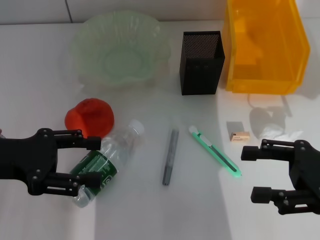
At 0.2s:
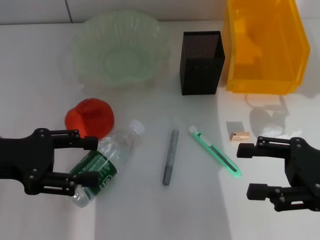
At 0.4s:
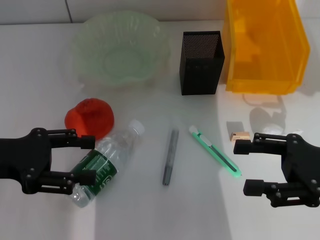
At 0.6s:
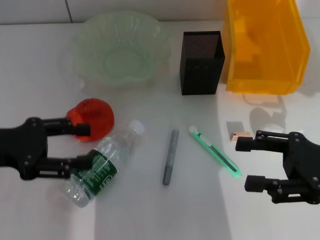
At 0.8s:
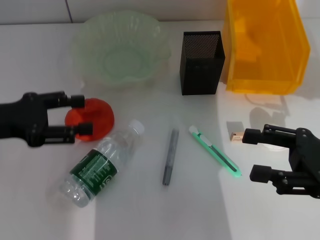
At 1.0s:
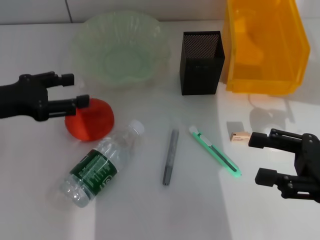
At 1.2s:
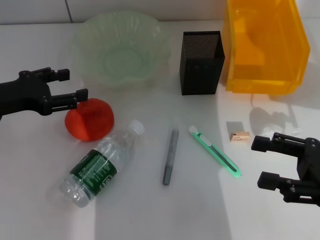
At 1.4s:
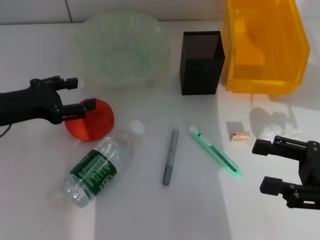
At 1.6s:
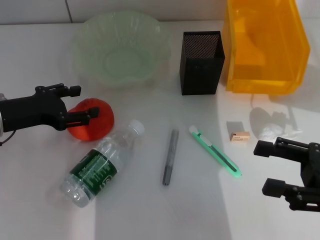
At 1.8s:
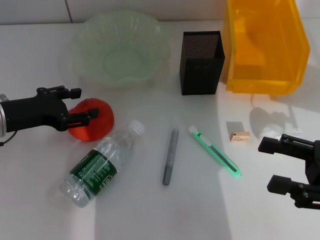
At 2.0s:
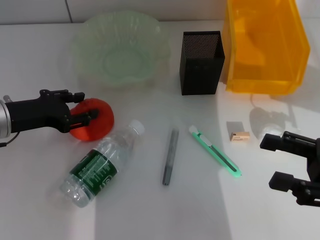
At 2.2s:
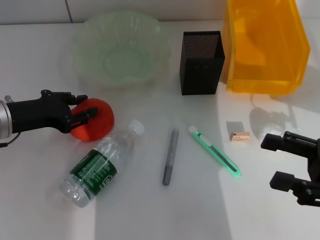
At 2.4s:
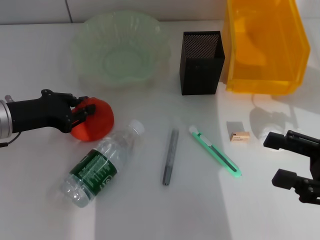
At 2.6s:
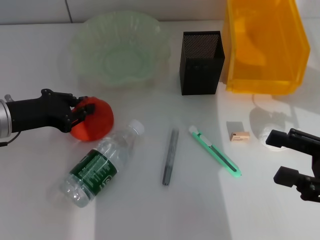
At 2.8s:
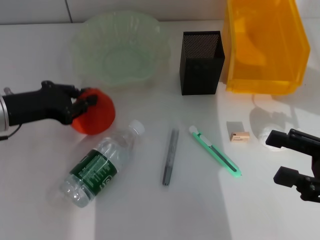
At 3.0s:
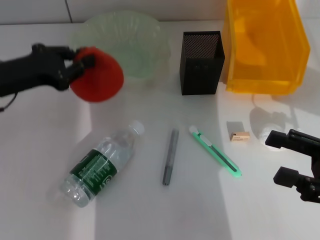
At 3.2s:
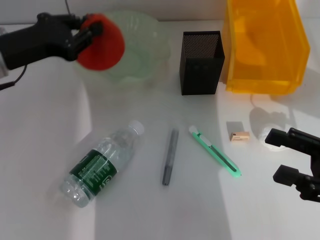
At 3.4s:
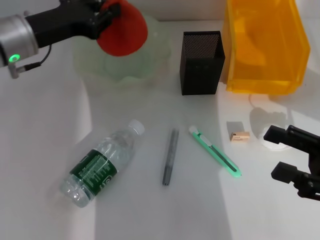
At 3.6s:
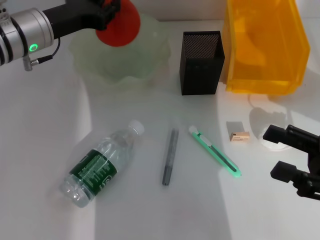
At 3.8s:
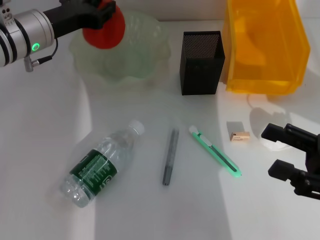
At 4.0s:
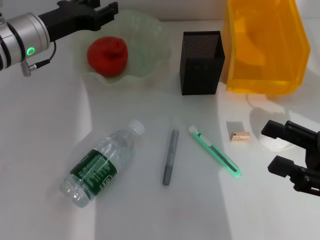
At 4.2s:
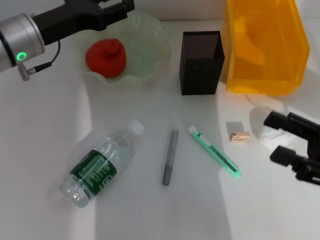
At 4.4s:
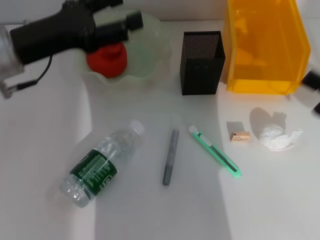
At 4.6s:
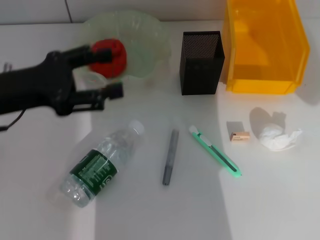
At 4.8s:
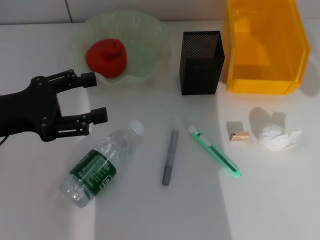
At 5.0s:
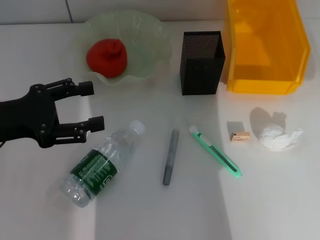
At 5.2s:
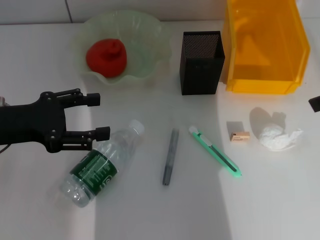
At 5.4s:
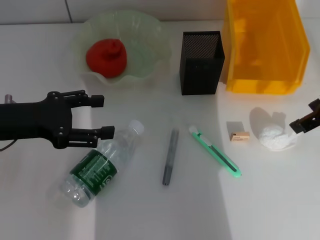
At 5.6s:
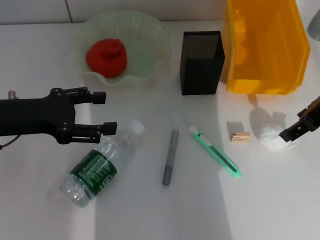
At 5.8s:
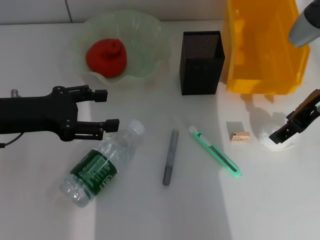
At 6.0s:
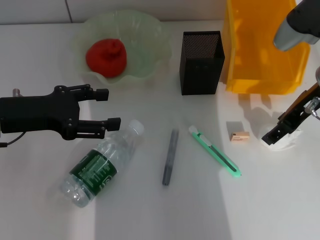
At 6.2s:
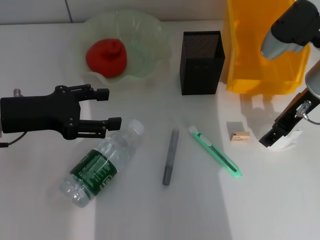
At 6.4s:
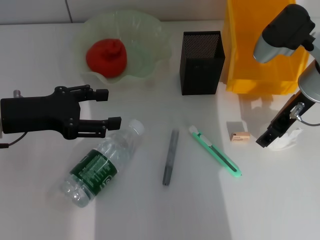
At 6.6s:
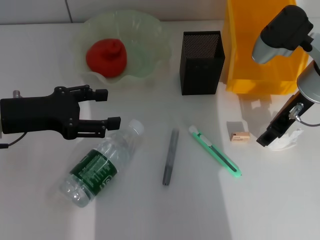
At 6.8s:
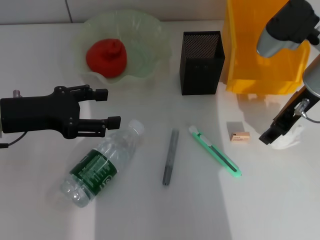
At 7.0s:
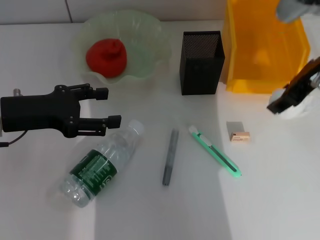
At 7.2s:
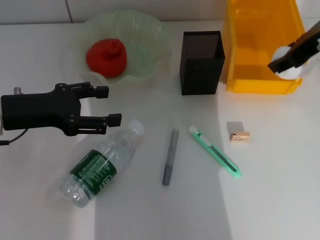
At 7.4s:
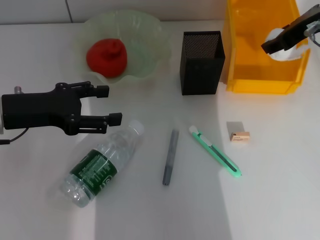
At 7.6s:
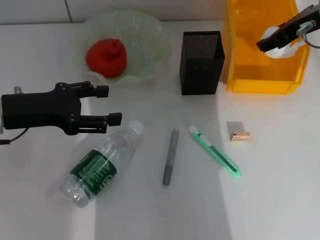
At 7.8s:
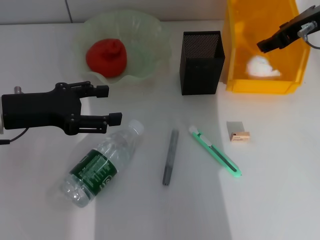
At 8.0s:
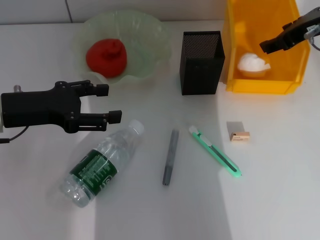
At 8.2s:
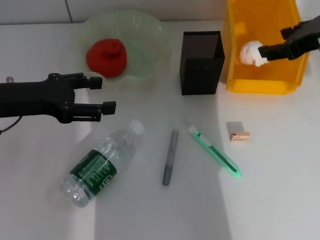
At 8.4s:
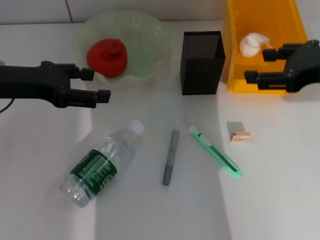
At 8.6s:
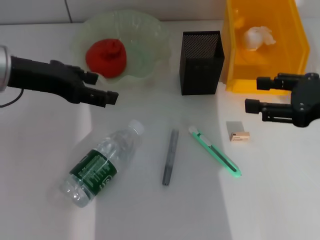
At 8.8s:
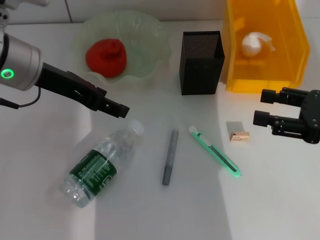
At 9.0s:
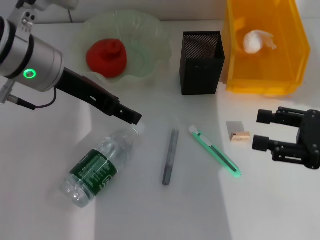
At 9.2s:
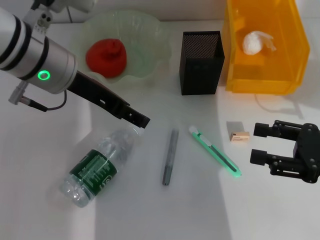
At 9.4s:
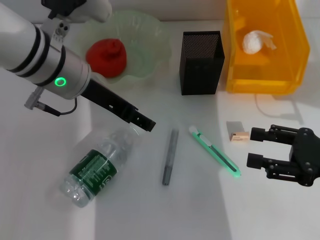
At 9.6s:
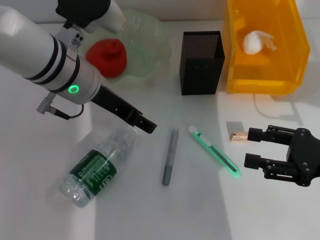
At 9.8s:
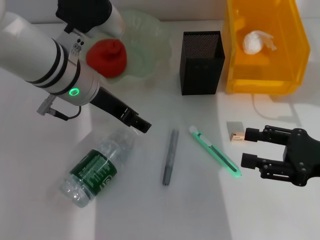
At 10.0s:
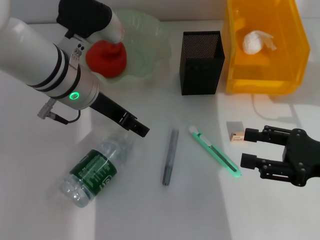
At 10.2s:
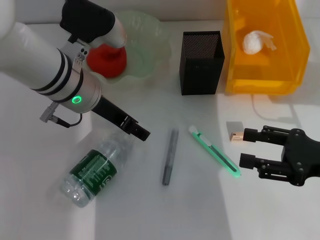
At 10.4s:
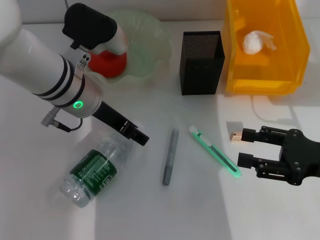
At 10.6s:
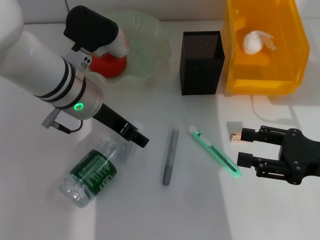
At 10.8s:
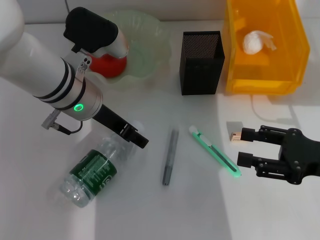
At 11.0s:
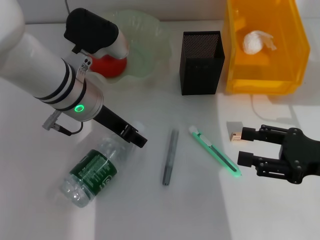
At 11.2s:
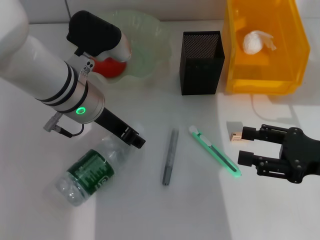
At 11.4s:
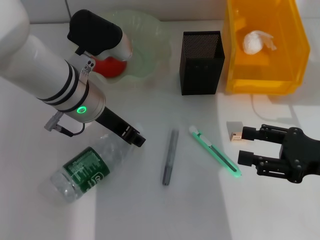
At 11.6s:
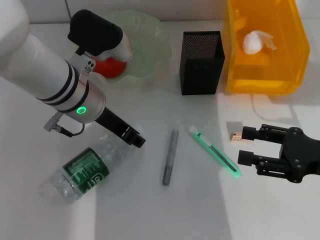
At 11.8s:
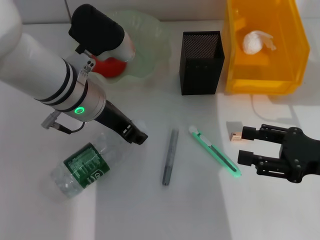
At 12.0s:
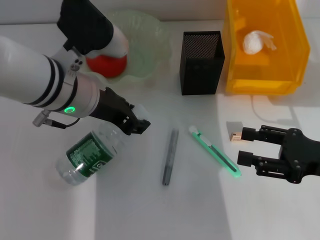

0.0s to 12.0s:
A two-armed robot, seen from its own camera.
Step, 0.0s to 2.4s: Grab the orange with the left hand.
Step, 2.8s to 3.8s: Place the orange into the fruit bowl with the left hand.
Step, 4.2s to 6.4s: Grab the paper ball with the right hand.
Step, 6.8s to 7.8s: Place the paper ball into the trash can with the right hand.
Step, 8.0s to 11.2s: Grab the water bottle with the left hand.
0.0s to 1.6s: The left gripper heads forward, covering some 5 cm.
1.6s to 3.0s: The left gripper closes up.
3.0s to 4.4s: The left gripper moves approximately 10 cm forward and comes back, and opens up.
4.4s to 6.0s: The right gripper is displaced forward and to the left by some 20 cm, and moves some 15 cm upward and comes back, while the left gripper ends up about 5 cm from where it was.
6.0s to 7.6s: The right gripper heads upward, covering some 5 cm.
7.6s to 9.0s: The left gripper moves to the right and upward, some 10 cm; the right gripper is displaced backward, downward and to the right by roughly 20 cm.
9.0s to 10.4s: The left gripper heads downward, covering some 5 cm.
10.4s to 12.0s: The left gripper closes its fingers.

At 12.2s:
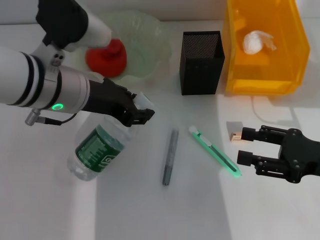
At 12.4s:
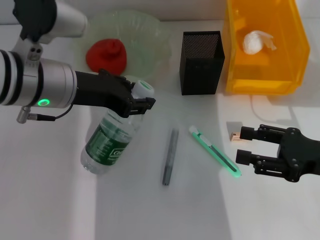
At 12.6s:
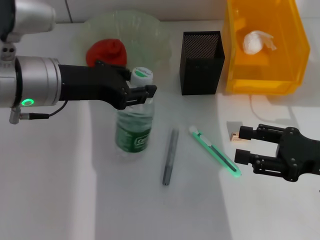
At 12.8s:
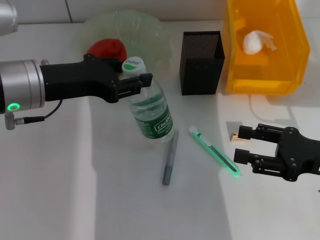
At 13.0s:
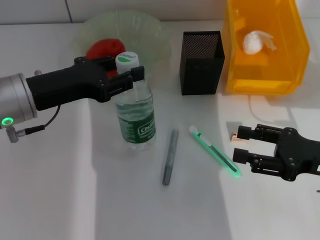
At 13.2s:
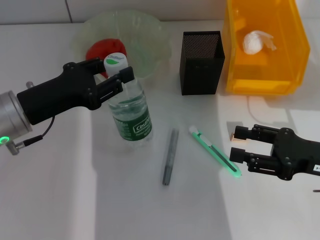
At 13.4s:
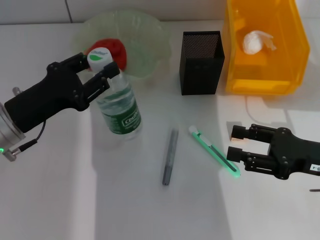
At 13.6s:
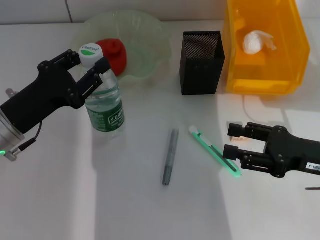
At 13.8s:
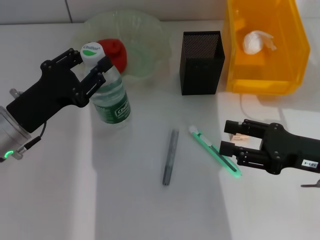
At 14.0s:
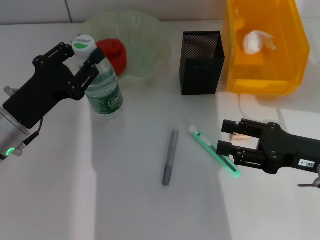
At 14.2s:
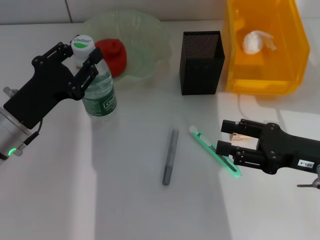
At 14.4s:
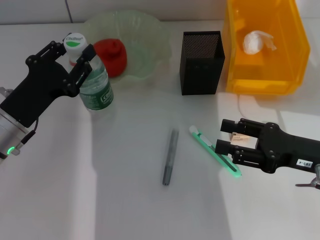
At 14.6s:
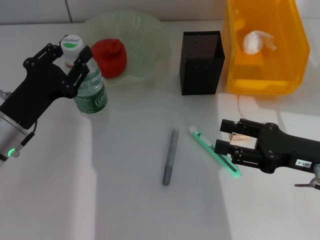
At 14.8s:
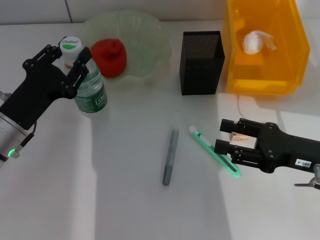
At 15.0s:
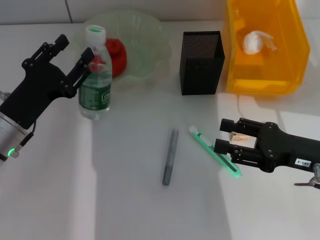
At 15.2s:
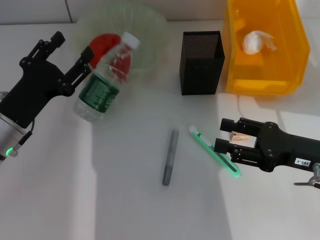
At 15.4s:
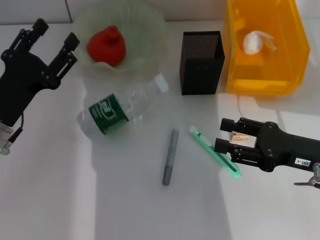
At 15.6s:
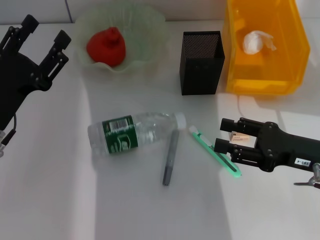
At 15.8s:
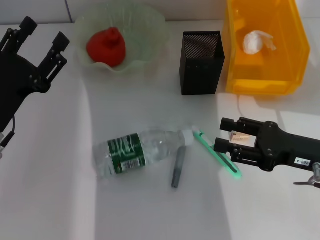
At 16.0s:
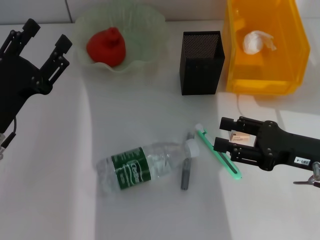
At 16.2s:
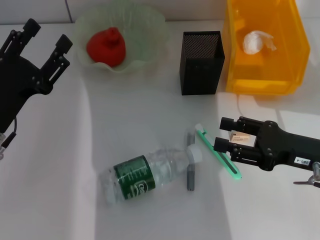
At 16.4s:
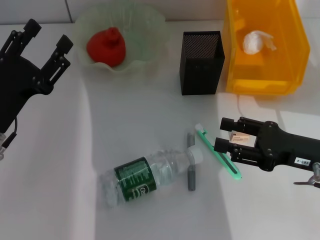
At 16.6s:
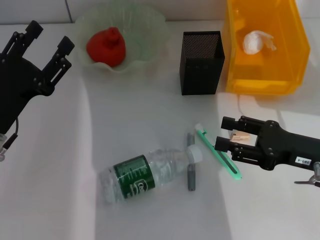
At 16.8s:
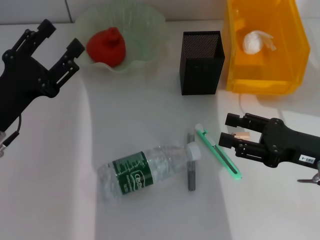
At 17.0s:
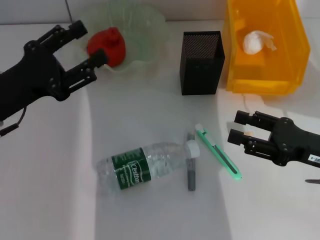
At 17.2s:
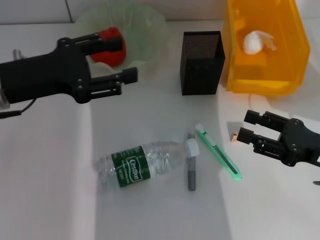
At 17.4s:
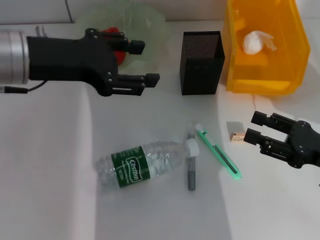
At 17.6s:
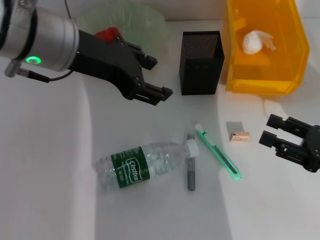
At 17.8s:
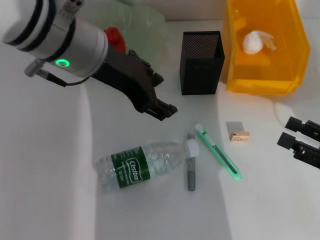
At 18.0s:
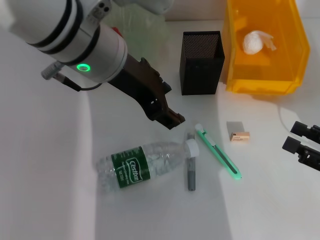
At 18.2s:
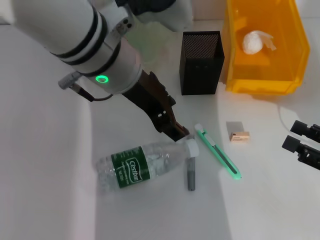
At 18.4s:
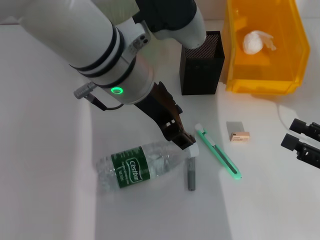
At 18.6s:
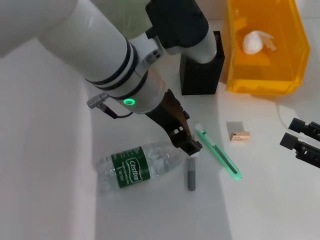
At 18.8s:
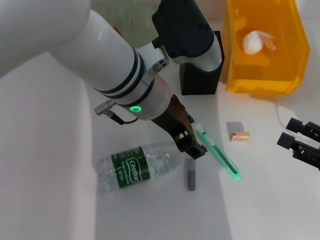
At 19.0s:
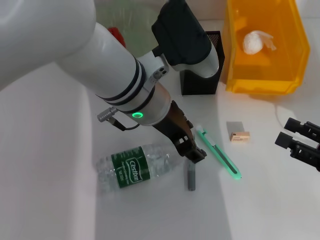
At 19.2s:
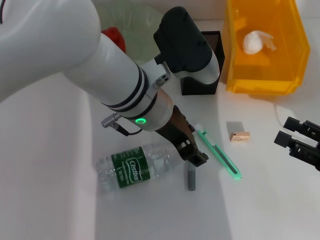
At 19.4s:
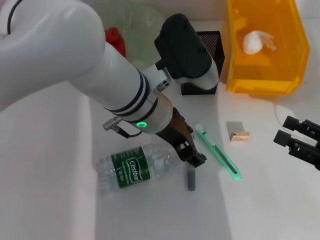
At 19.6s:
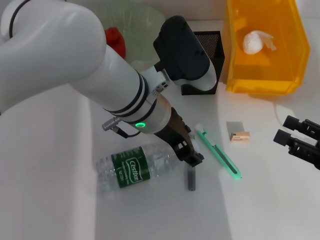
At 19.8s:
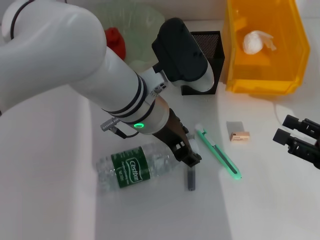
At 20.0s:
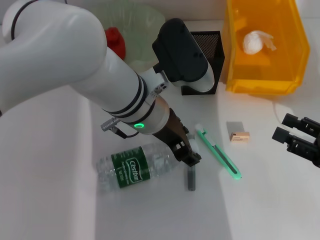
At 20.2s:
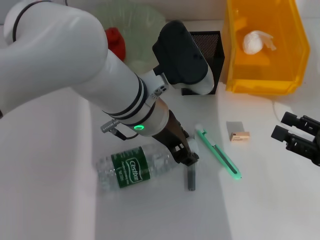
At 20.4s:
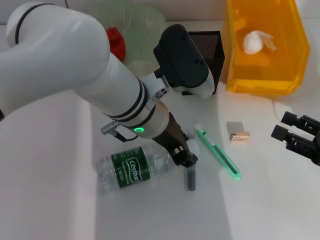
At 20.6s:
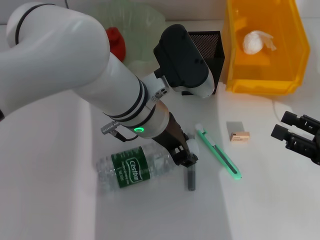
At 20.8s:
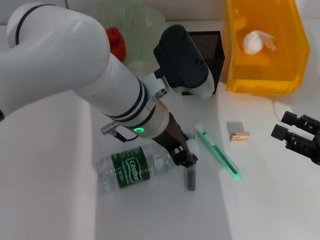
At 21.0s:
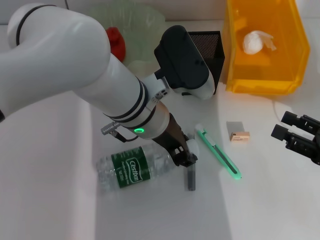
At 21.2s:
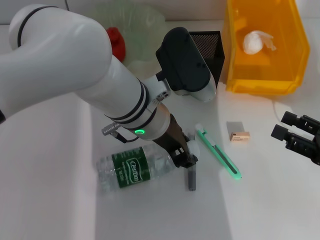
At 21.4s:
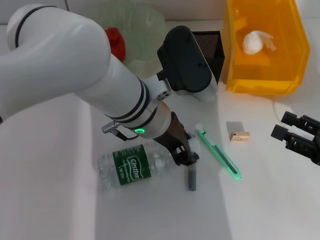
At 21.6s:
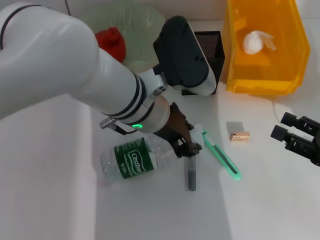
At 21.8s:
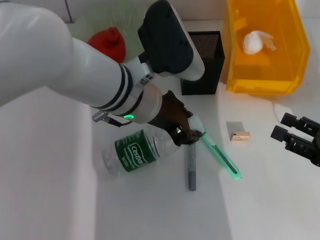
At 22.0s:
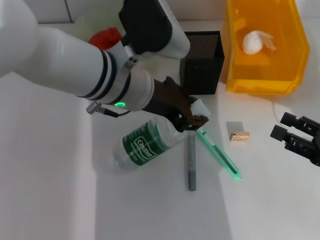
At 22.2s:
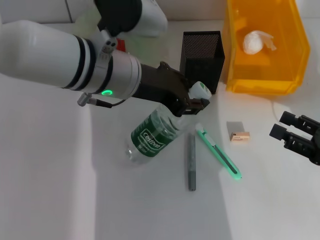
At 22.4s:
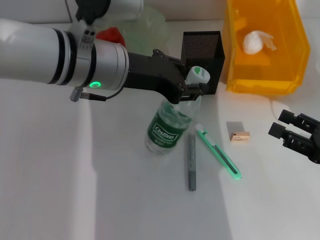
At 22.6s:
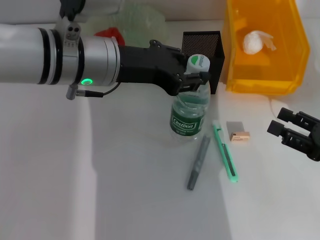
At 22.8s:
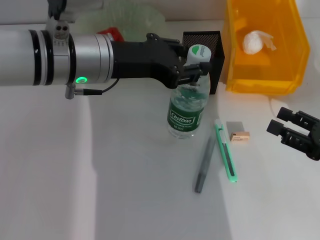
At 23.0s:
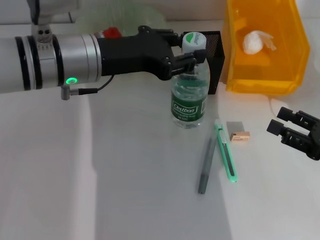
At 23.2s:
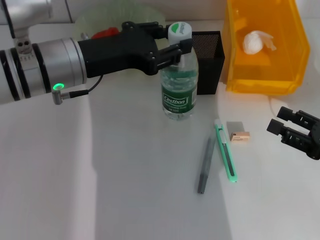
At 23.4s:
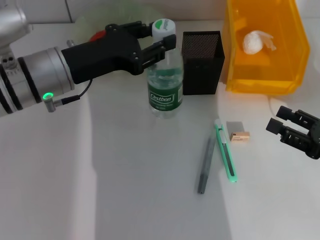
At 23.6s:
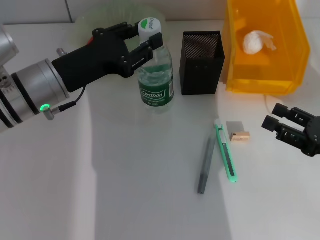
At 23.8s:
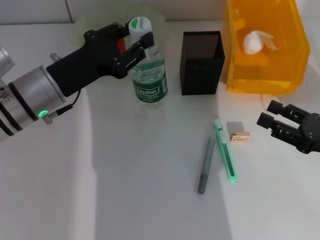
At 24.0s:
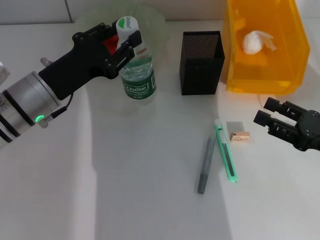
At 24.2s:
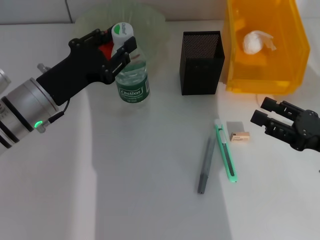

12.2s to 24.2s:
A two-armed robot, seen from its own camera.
12.2s to 13.8s: The left gripper moves downward and to the left, about 15 cm.
13.8s to 16.6s: The grippers stay close to where they were, moving slightly.
16.6s to 18.2s: The left gripper is displaced to the right and upward by approximately 25 cm; the right gripper heads to the right and backward, covering roughly 10 cm.
18.2s to 19.8s: The left gripper goes about 10 cm downward.
19.8s to 21.2s: The left gripper closes its fingers.
21.2s to 22.6s: The left gripper moves to the left and upward, about 10 cm.
22.6s to 24.2s: The left gripper goes approximately 15 cm downward and to the left.
